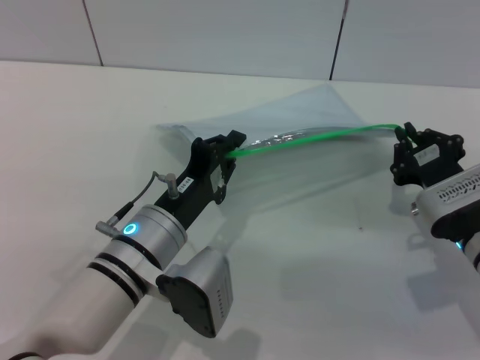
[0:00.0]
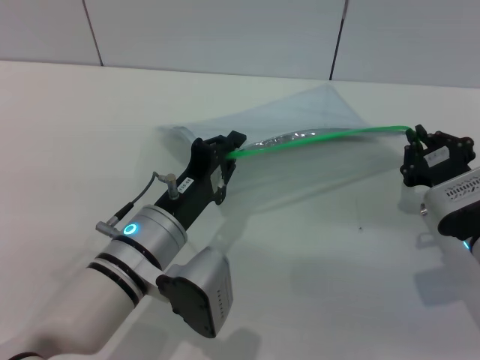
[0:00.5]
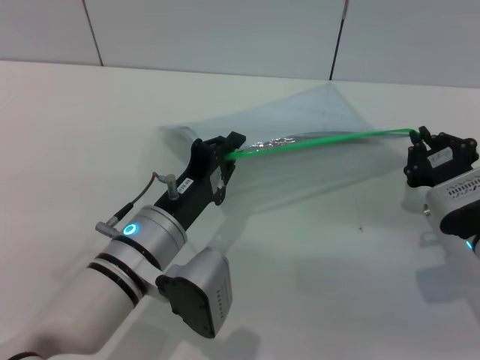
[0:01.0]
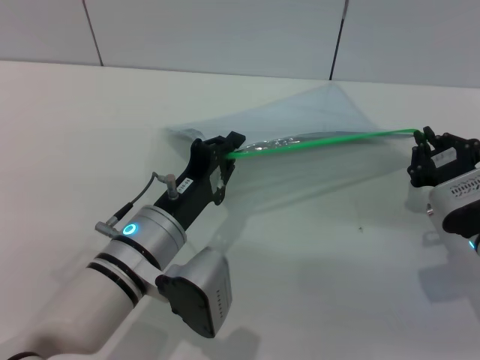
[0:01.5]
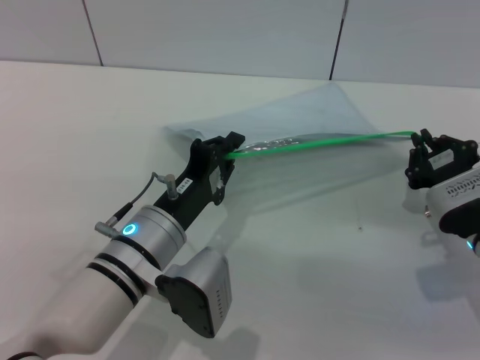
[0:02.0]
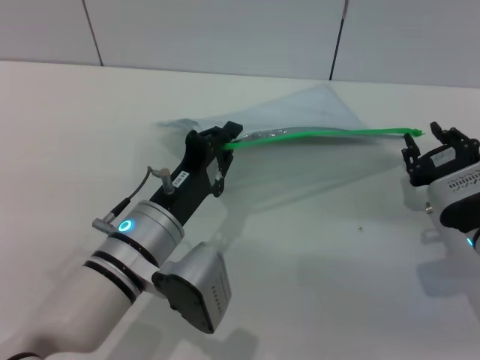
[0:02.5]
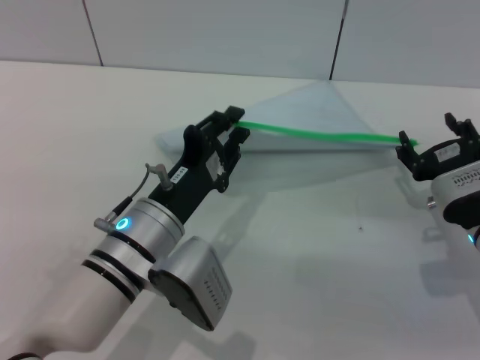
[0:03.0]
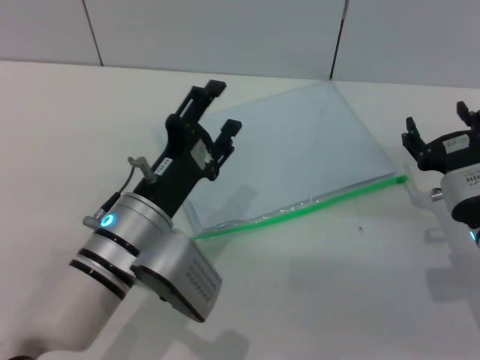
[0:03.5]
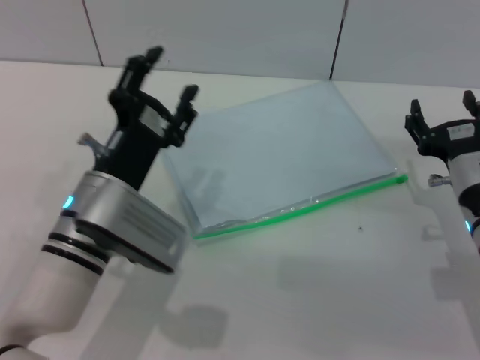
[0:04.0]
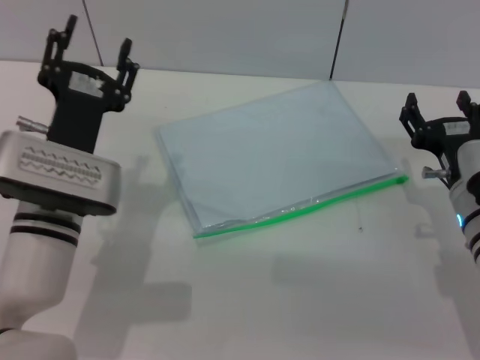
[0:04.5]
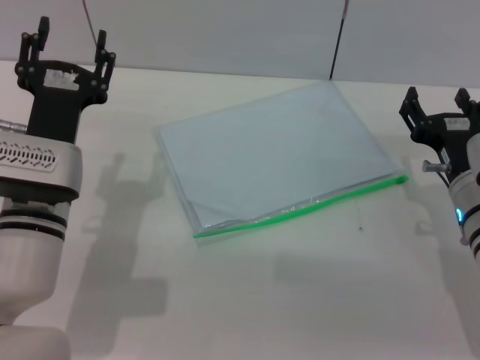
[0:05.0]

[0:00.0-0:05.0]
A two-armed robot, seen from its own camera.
Step, 0:00.0 to 0:02.5: Pulling up the zipper on the transparent plastic bag with the right gripper to close it.
Step, 0:03.0 to 0:03.5: Place the transparent plastic bag.
0:00.0 to 0:02.5: There are only small adjustments of the grippers.
0:02.5 to 0:05.0: The right gripper opens; the left gripper travels to the left by about 10 cm, and opens its fingers.
